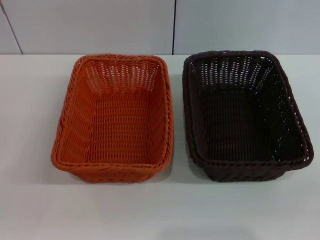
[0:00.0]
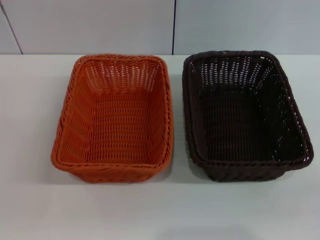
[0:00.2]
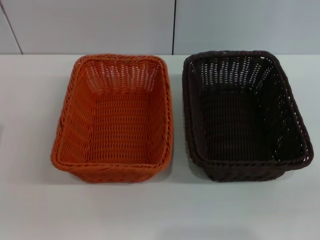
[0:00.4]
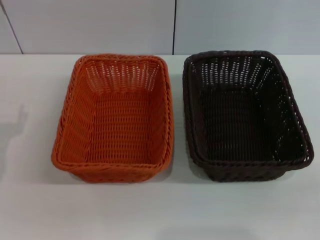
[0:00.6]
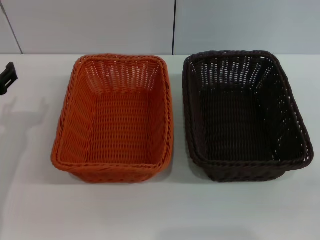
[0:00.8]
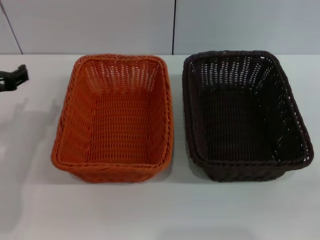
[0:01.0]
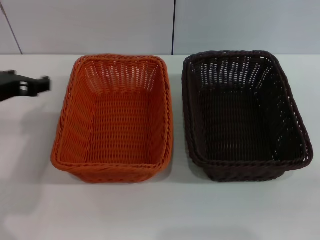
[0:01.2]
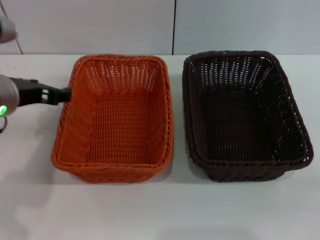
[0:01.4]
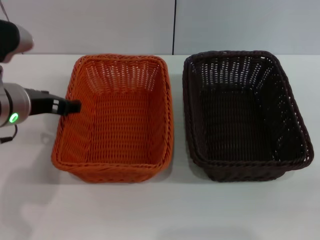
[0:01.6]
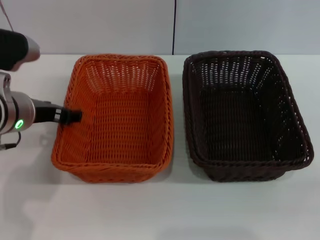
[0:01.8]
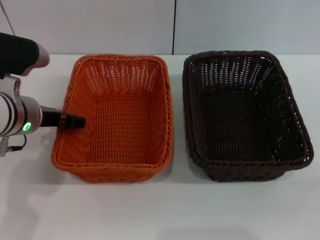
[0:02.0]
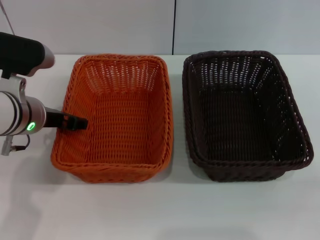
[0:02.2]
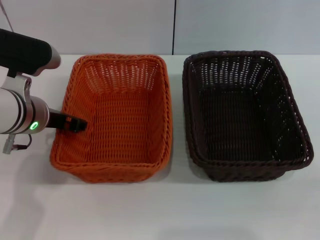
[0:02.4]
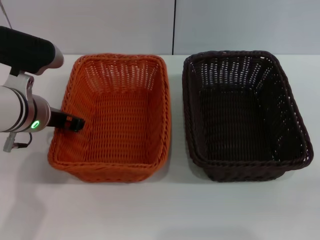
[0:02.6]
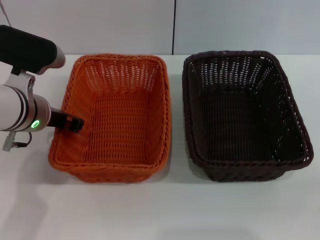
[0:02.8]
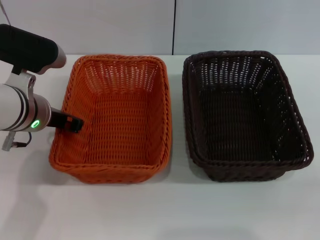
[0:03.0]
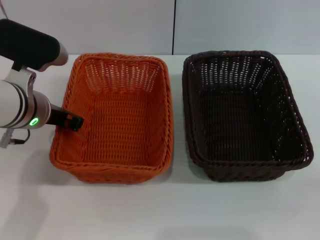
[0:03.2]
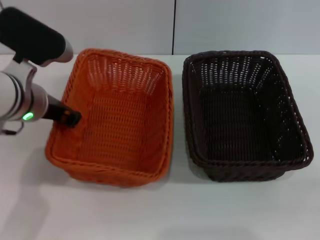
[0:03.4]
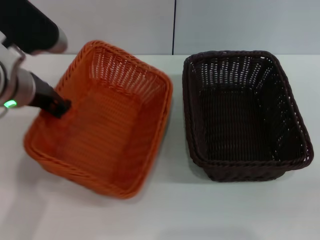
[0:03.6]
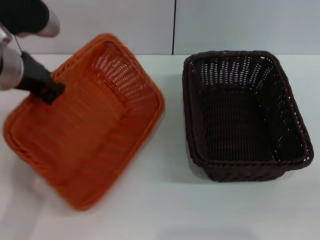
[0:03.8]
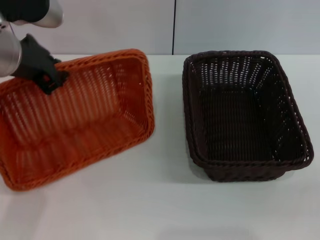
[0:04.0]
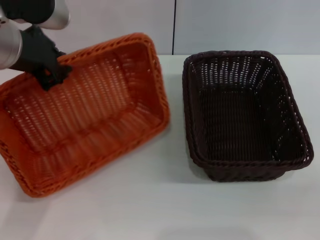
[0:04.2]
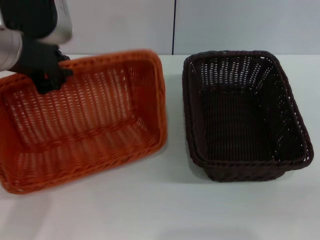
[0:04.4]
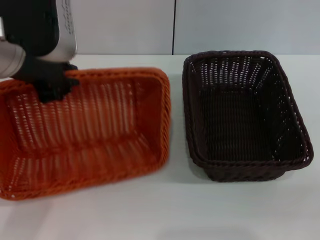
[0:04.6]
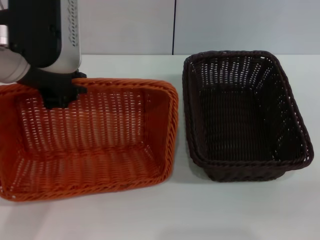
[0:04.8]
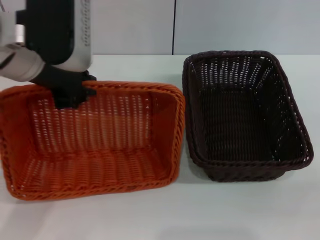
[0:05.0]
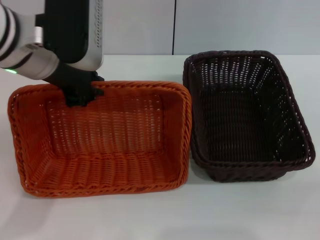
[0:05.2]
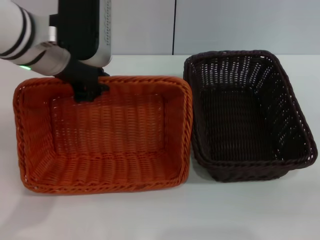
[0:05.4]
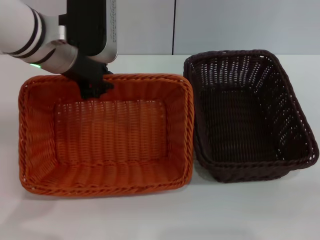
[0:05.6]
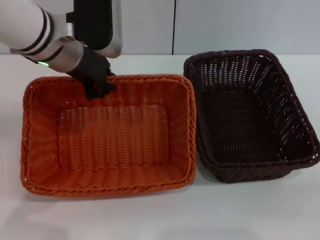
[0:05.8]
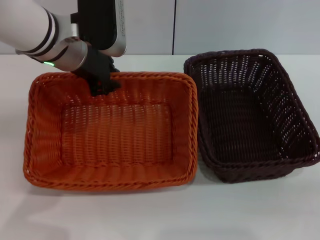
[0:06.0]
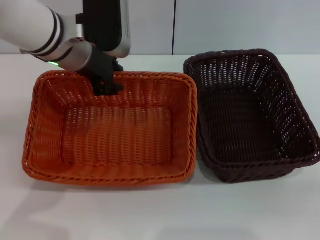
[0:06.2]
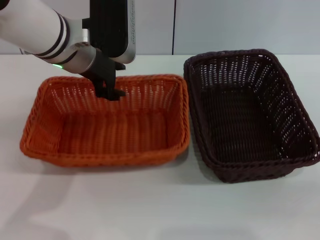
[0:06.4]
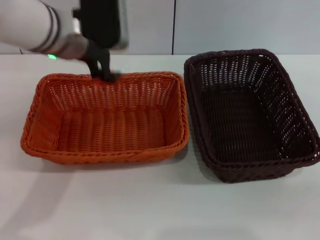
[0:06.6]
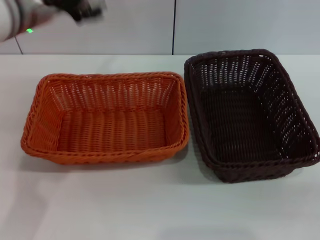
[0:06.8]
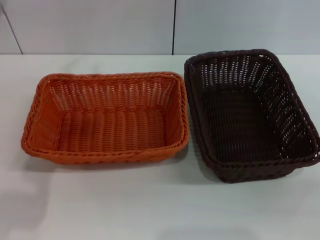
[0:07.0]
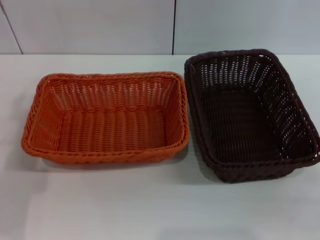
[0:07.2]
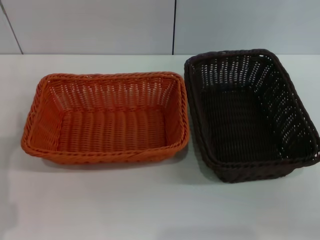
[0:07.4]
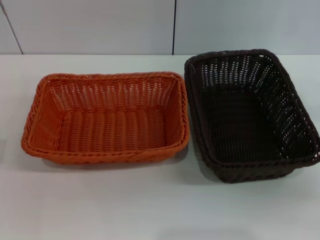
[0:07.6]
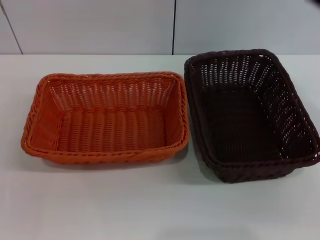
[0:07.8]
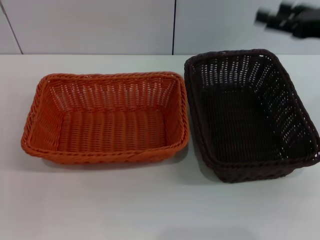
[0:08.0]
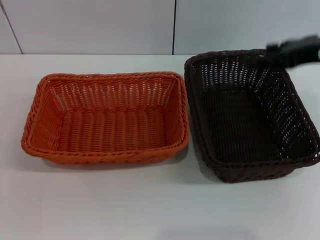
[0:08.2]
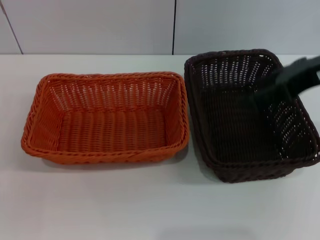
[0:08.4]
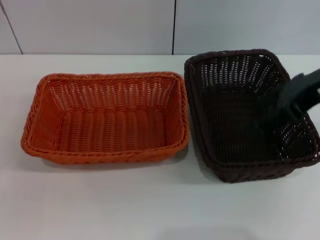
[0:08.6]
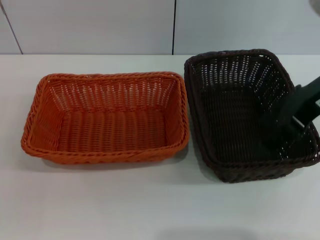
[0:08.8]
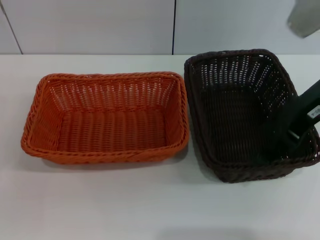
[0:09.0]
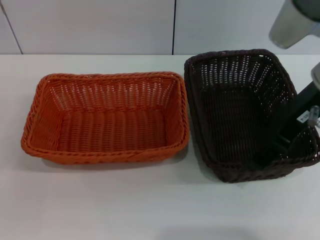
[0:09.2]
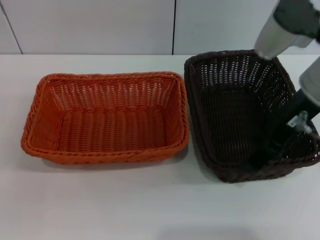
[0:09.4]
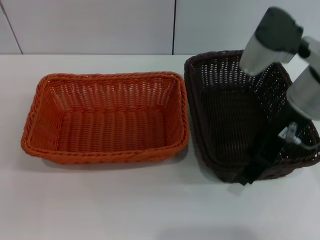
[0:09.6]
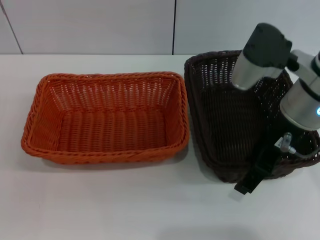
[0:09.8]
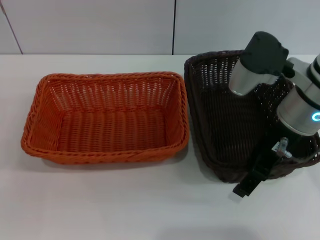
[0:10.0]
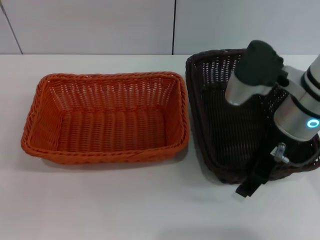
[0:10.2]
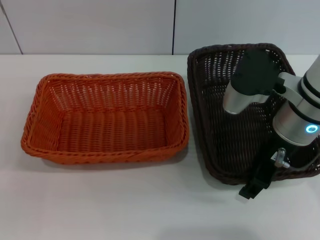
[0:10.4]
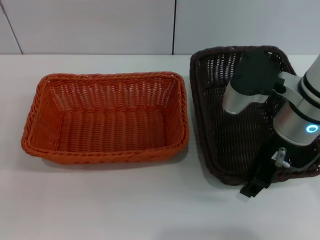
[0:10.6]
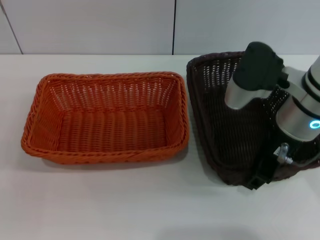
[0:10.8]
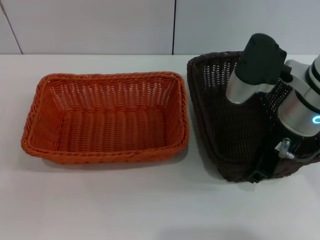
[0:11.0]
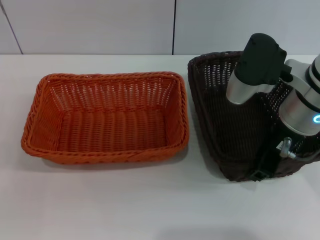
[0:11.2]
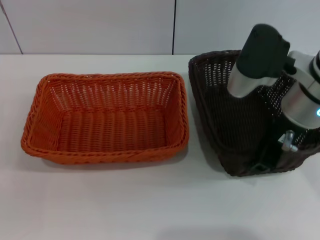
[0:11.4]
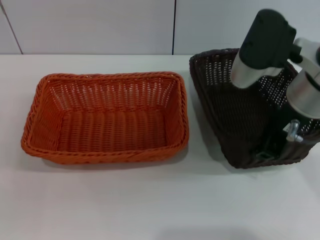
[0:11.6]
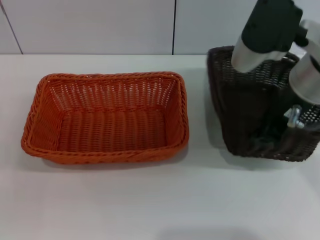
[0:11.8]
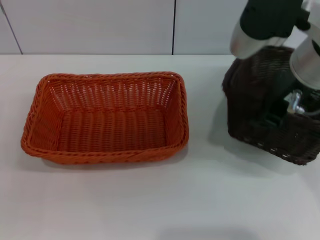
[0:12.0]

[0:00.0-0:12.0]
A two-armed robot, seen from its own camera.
Step, 0:00.0 to 0:03.2: Pick up the light basket with the left gripper.
Step, 0:03.6 to 0:06.4: Place the light basket in the center of view with the left gripper.
Step, 0:06.6 to 0:11.0: Pick up the dark basket with the right gripper.
0:00.0 to 0:01.6: The left gripper travels upward, to the right and forward by about 20 cm.
0:01.6 to 0:03.0: The left gripper closes up.
0:03.0 to 0:04.4: The left gripper shifts some 15 cm upward.
0:04.4 to 0:06.0: The left gripper is displaced forward and downward by approximately 10 cm.
0:06.0 to 0:07.6: The right gripper goes approximately 15 cm forward and upward, while the left gripper heads backward, to the left and downward, covering roughly 30 cm, and opens up.
0:07.6 to 0:09.0: The right gripper is displaced to the left and upward by some 20 cm.
0:09.0 to 0:10.4: The right gripper shifts some 10 cm downward.
0:10.4 to 0:12.0: The right gripper is displaced upward by approximately 10 cm, and closes its fingers.

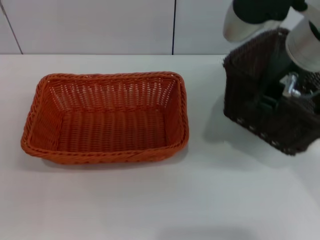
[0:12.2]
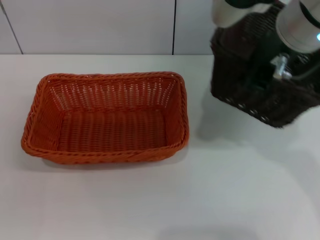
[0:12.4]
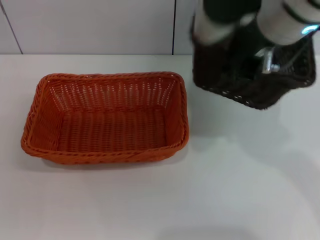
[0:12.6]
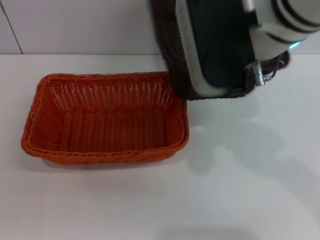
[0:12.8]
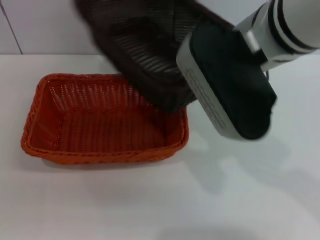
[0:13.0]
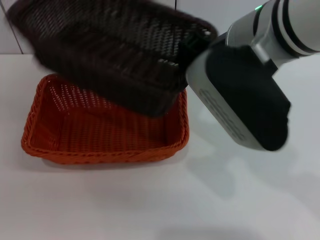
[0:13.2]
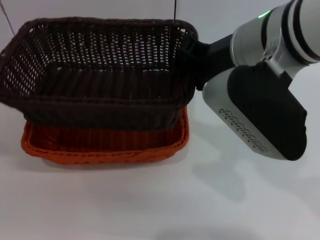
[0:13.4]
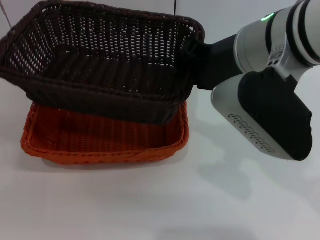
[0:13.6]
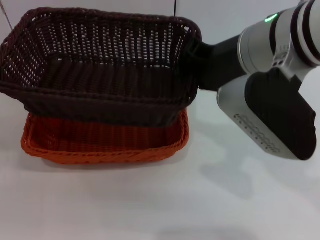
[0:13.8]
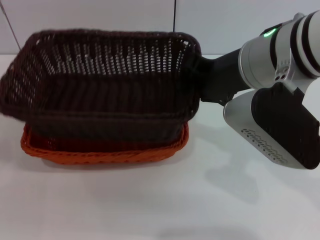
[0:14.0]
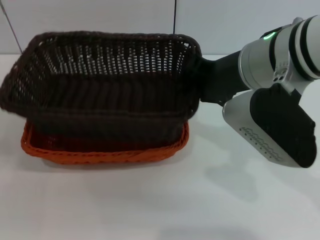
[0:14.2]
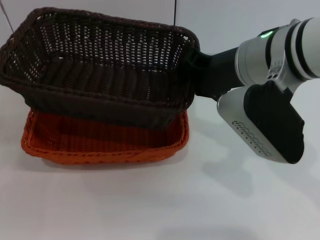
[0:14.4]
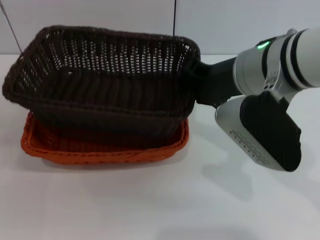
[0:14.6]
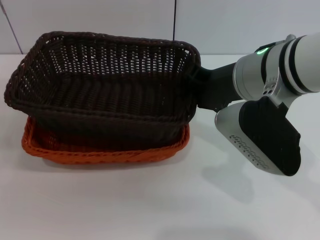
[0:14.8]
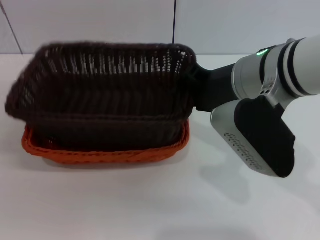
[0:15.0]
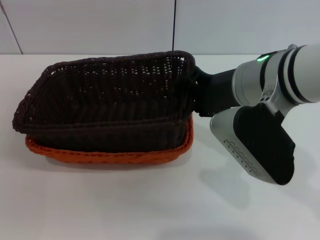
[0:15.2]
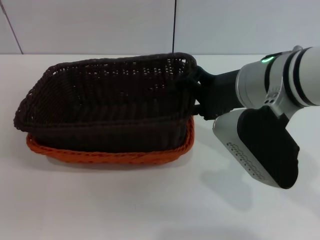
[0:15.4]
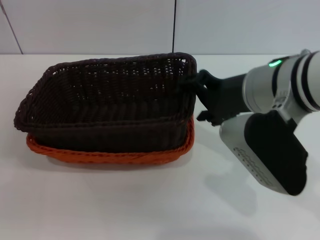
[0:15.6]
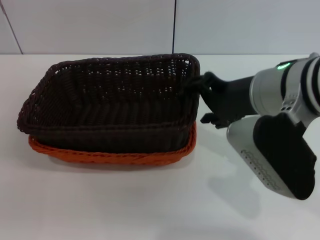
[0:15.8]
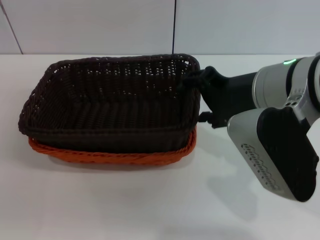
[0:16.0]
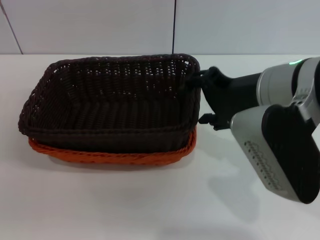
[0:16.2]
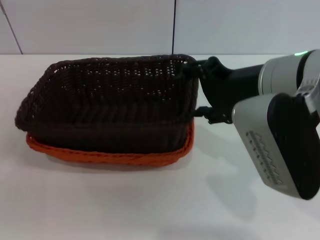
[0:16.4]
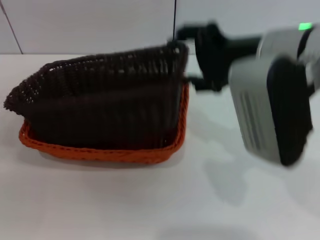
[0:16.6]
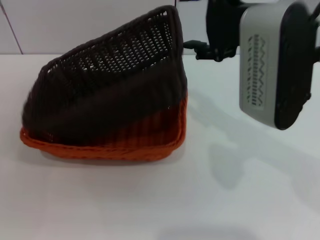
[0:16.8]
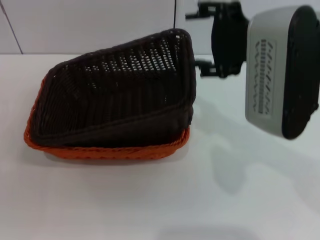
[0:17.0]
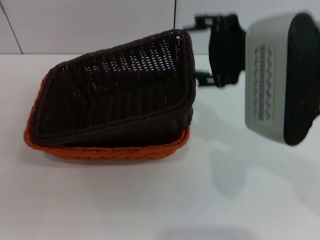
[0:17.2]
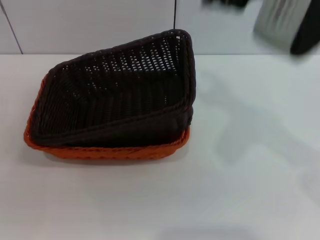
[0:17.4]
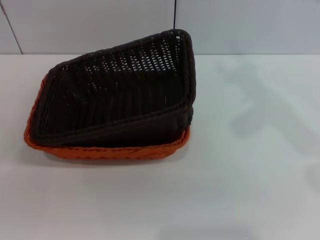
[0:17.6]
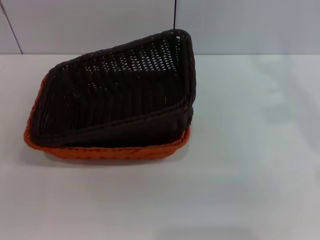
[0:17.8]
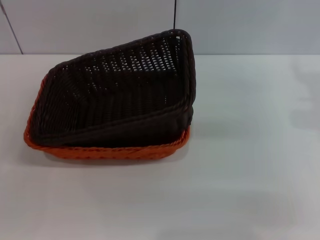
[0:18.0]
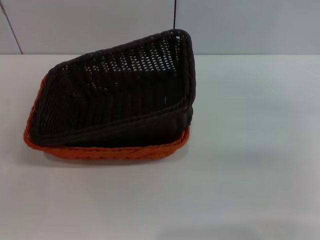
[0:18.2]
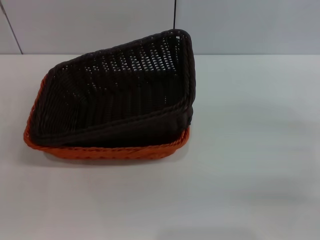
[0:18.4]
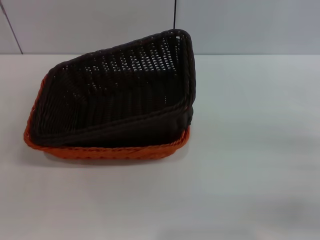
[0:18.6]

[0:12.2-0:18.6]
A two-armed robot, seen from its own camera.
Step, 0:12.2 to 0:16.8: Place the dark basket on the light basket with the right gripper.
0:13.8 to 0:15.4: The right gripper opens its fingers.
0:15.4 to 0:17.0: The right gripper ends up about 5 cm from where it was, and opens.
0:17.0 to 0:18.6: The right gripper is displaced to the right and downward by roughly 30 cm.

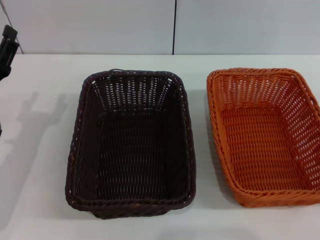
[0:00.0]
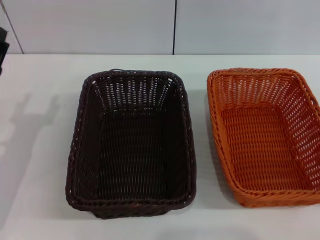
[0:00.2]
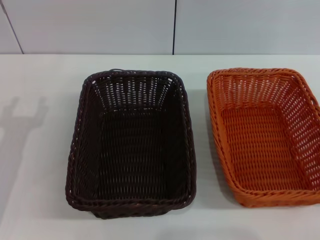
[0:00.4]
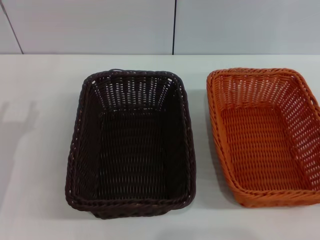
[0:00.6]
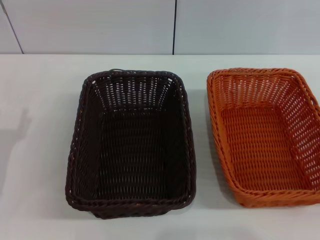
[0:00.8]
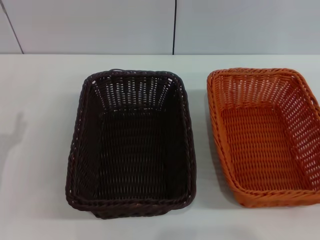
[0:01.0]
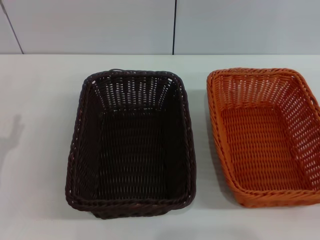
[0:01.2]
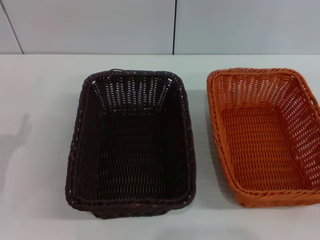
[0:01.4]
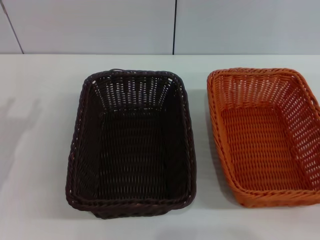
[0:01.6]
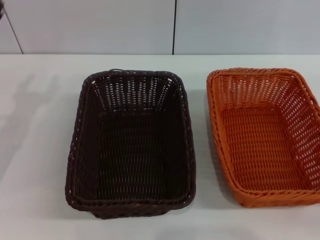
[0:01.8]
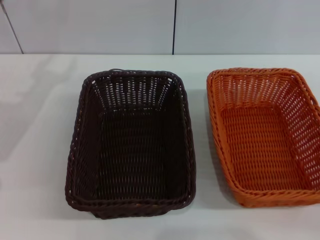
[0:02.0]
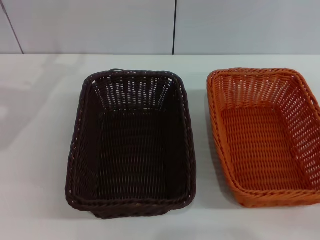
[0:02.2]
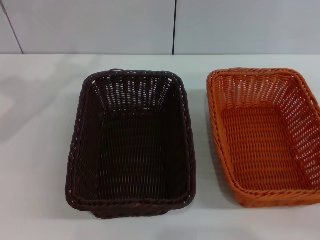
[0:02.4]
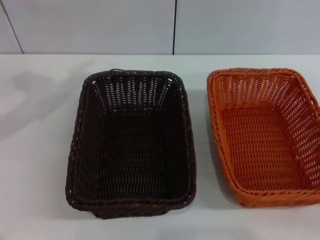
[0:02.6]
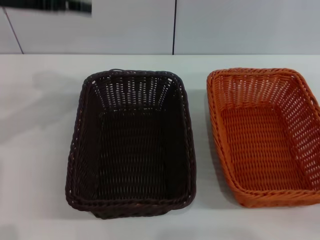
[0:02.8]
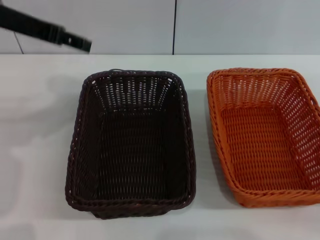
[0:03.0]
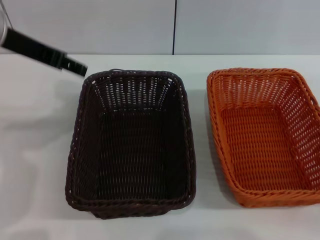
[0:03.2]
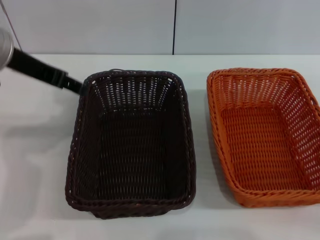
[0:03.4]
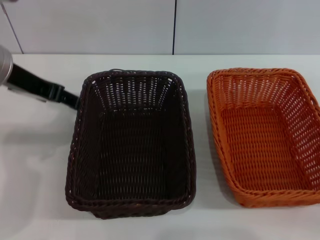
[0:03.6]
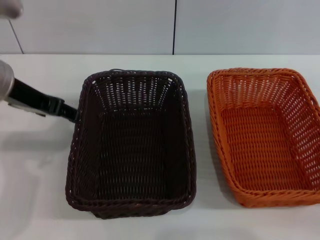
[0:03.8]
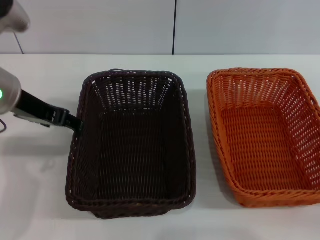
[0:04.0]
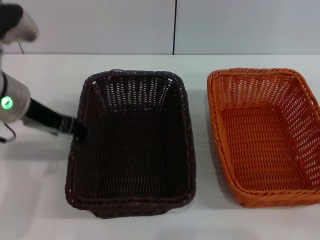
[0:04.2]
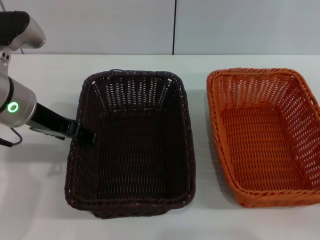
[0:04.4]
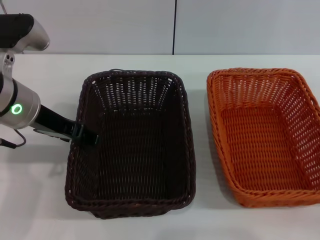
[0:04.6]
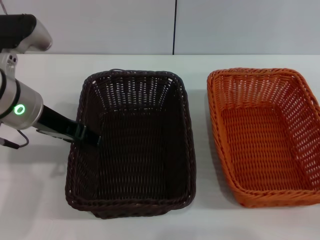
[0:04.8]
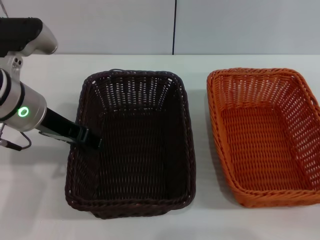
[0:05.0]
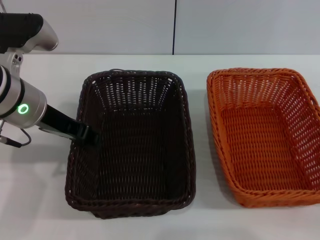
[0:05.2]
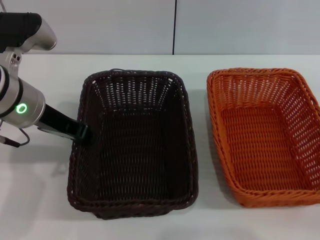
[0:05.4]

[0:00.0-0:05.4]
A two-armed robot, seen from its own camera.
0:00.0 to 0:01.4: The left gripper goes about 5 cm backward.
0:01.4 to 0:02.8: The left gripper heads upward and forward, covering about 30 cm.
0:02.8 to 0:04.0: The left gripper goes some 5 cm downward.
0:04.0 to 0:05.4: The left gripper closes its fingers.
